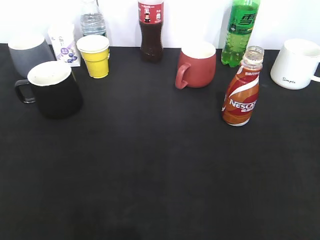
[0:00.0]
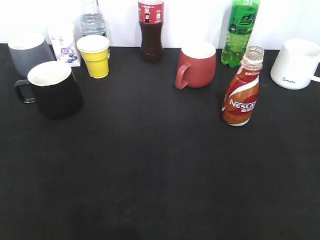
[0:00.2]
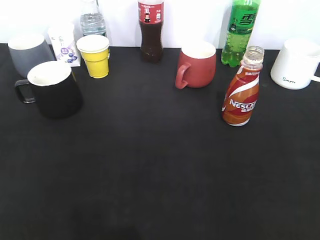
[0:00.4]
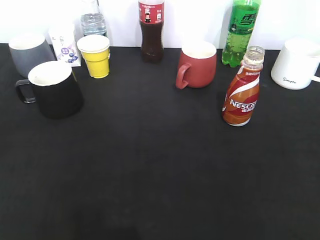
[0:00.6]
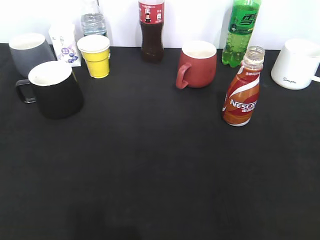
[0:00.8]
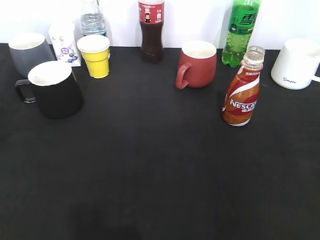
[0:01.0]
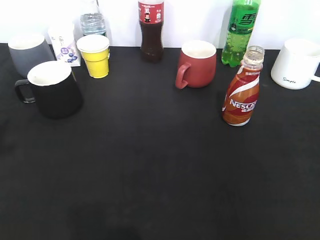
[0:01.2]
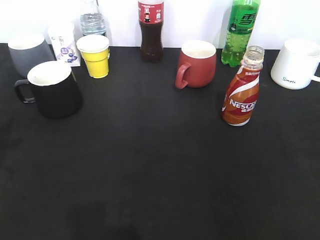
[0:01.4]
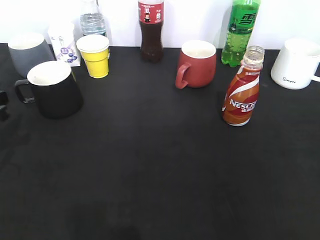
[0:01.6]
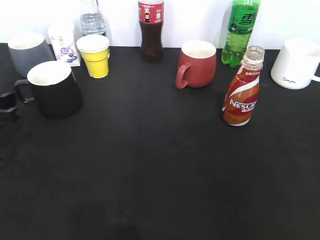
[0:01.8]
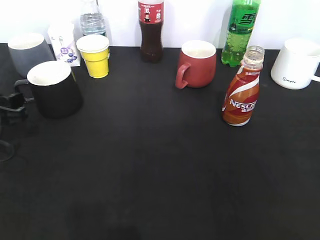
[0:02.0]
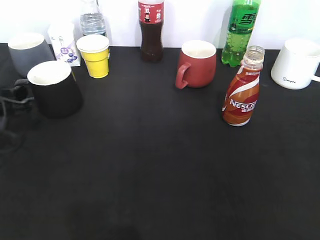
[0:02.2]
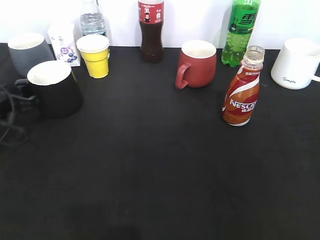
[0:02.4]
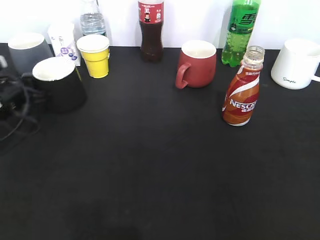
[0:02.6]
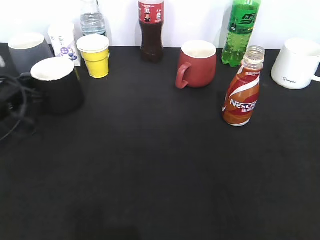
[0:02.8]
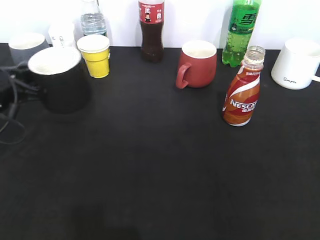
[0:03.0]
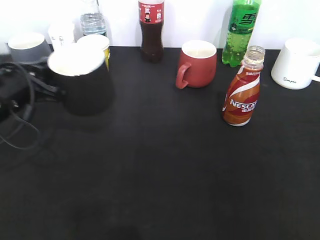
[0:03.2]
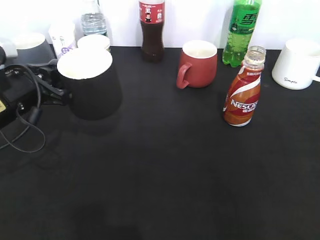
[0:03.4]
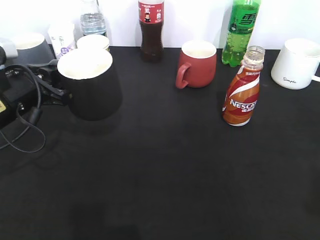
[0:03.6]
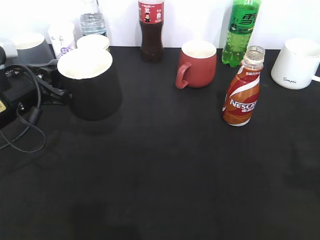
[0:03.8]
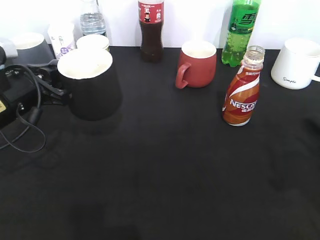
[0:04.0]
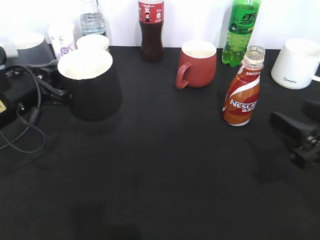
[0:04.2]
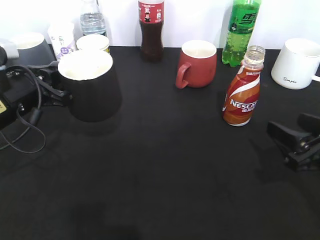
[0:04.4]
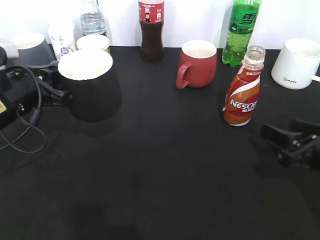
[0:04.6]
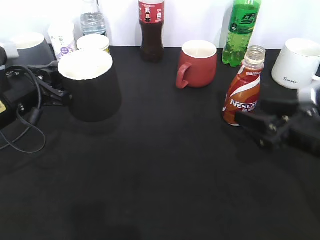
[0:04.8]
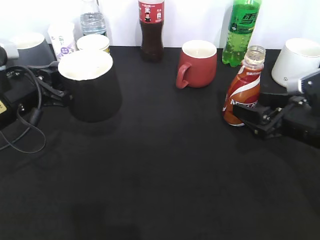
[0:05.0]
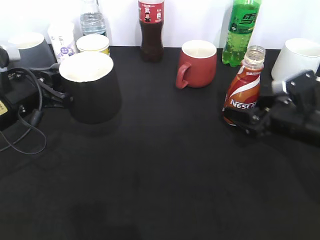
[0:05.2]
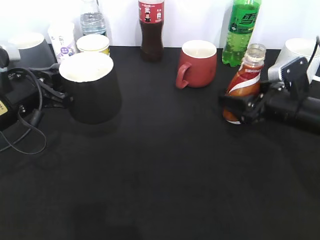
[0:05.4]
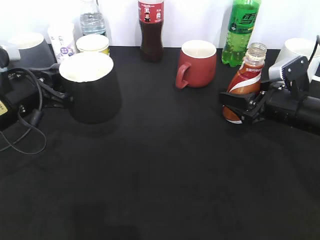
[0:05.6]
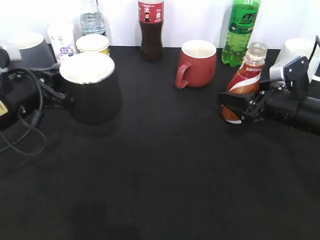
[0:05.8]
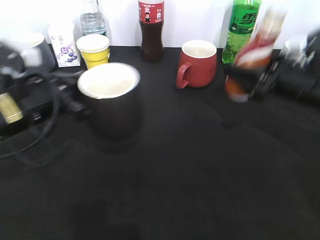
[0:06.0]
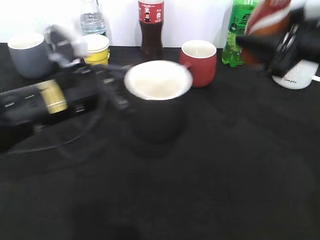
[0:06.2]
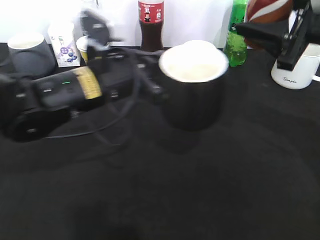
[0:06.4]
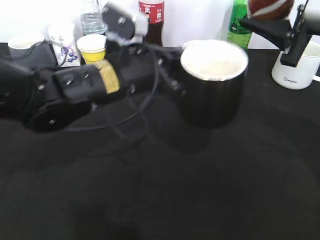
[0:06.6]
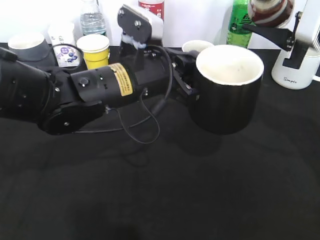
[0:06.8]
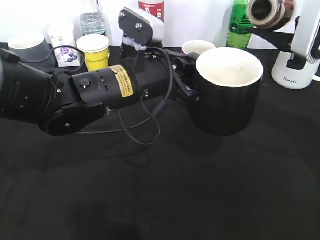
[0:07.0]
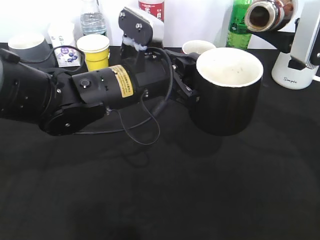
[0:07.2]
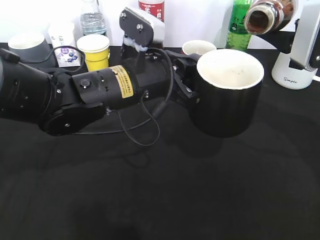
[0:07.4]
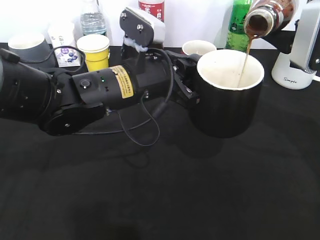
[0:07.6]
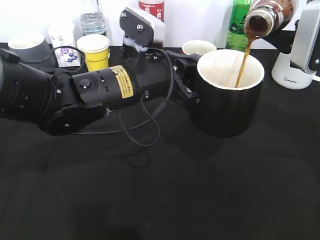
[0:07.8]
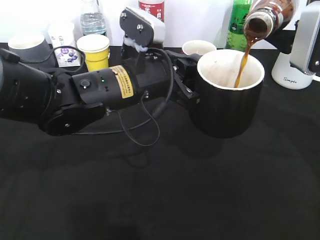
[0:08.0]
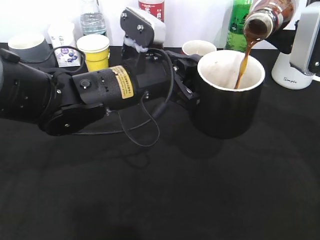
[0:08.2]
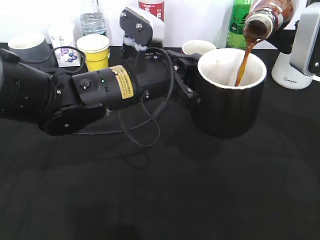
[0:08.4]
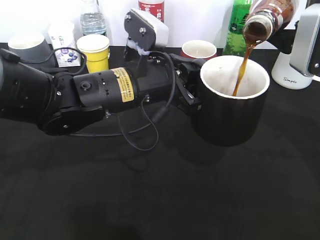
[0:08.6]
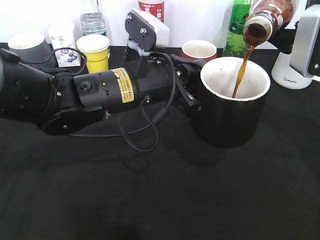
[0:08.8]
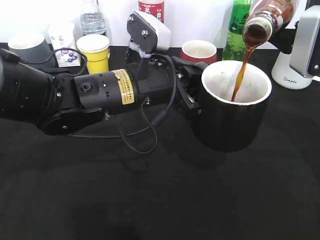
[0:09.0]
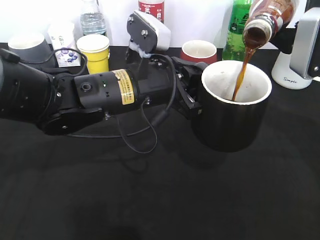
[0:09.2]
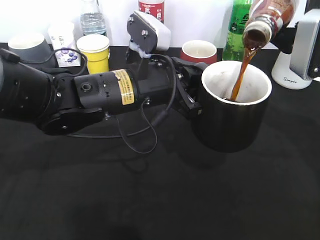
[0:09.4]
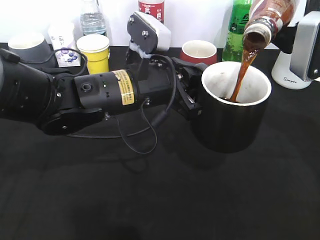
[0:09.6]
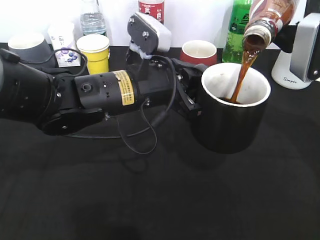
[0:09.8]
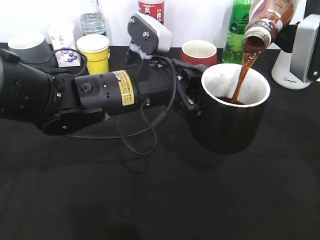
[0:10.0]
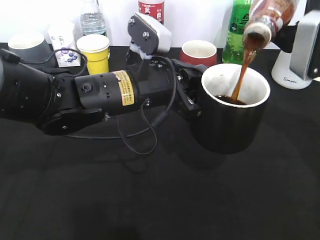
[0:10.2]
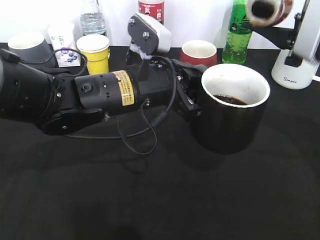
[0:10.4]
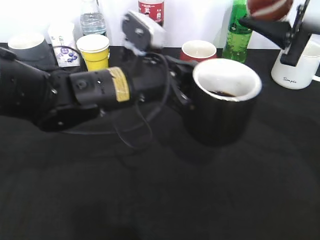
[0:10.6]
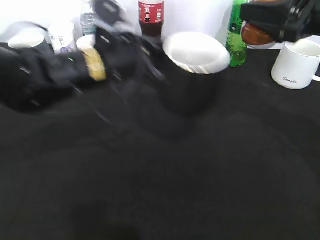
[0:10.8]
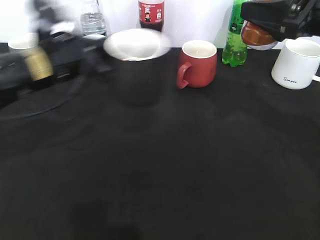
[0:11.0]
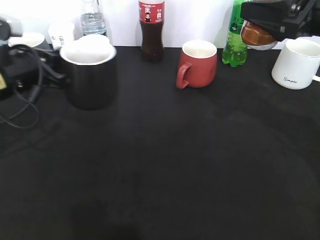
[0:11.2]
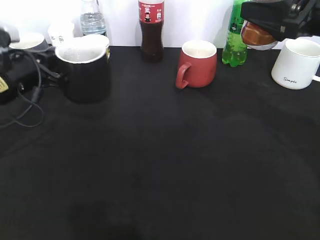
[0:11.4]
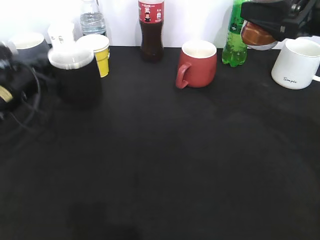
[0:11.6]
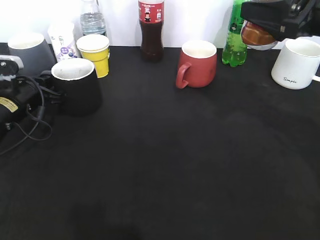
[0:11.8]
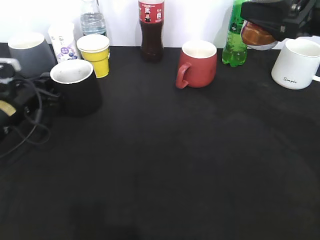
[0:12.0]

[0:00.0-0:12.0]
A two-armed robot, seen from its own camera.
Step, 0:00.6 to 0:02.6: Grasp the black cup with left gripper.
Step, 0:02.8 to 0:03.2: Lift the black cup with left gripper.
Step, 0:03.6 to 0:05.6: Grasp the bottle with coffee with right gripper.
Step, 0:05.8 to 0:10.8: Pour the coffee from bottle to cup with right gripper.
0:01.6 to 0:03.0: The left gripper heads forward, covering roughly 5 cm, and closes up.
0:03.0 to 0:04.4: The right gripper moves forward and downward, roughly 25 cm.
0:04.4 to 0:06.0: The right gripper heads forward, covering approximately 10 cm, and closes its fingers.
0:06.0 to 0:07.6: The left gripper travels to the right by roughly 15 cm. Meanwhile the right gripper moves upward, some 10 cm.
0:07.6 to 0:10.4: The grippers move only a little.
0:10.4 to 0:12.0: The left gripper moves to the left and downward, roughly 25 cm.

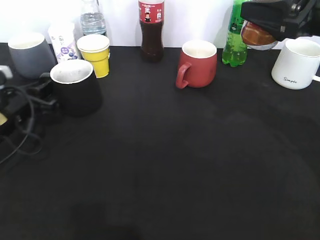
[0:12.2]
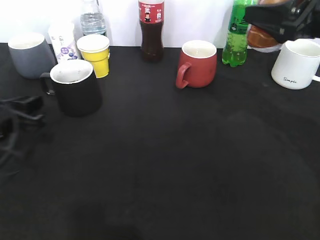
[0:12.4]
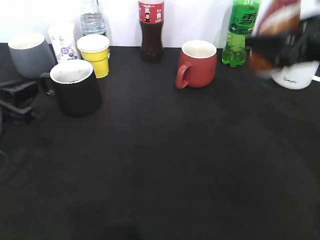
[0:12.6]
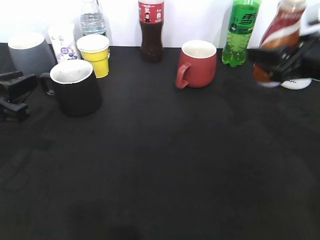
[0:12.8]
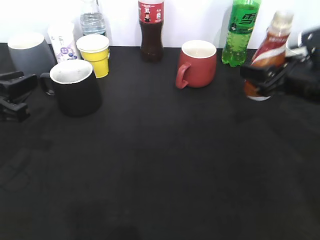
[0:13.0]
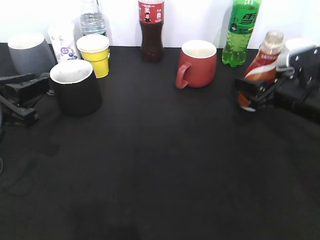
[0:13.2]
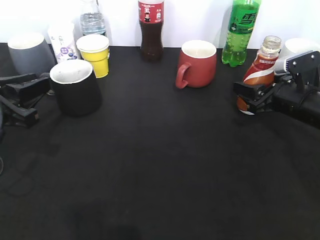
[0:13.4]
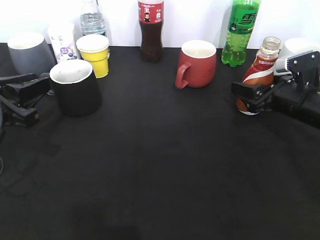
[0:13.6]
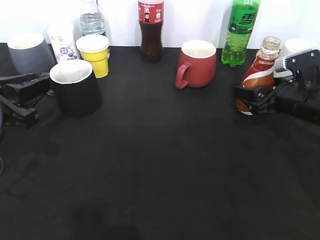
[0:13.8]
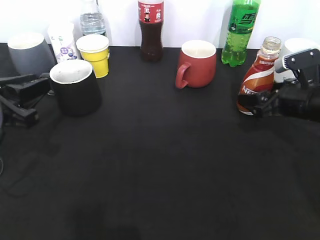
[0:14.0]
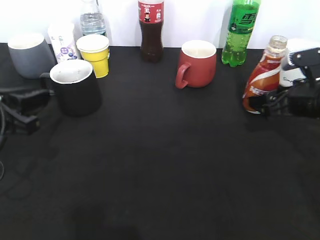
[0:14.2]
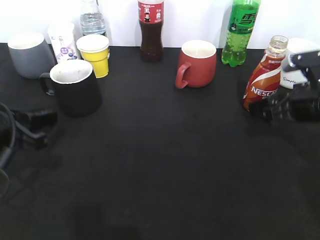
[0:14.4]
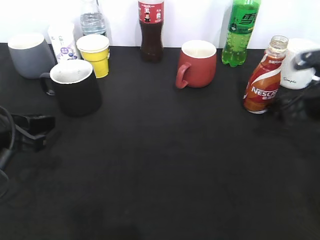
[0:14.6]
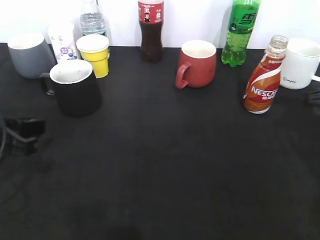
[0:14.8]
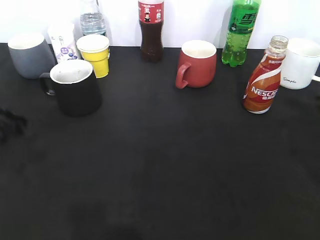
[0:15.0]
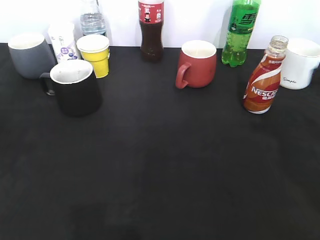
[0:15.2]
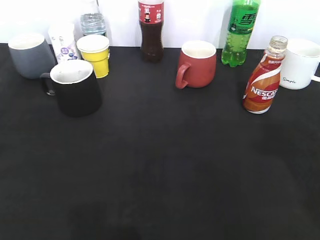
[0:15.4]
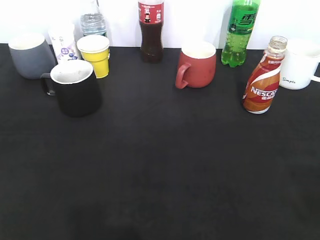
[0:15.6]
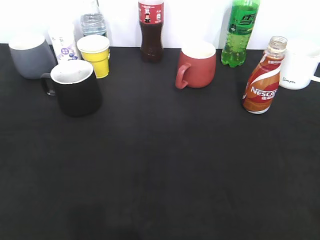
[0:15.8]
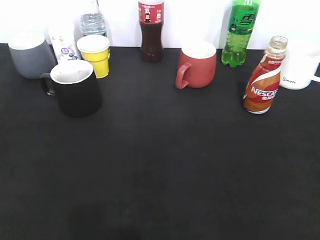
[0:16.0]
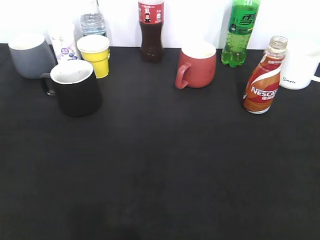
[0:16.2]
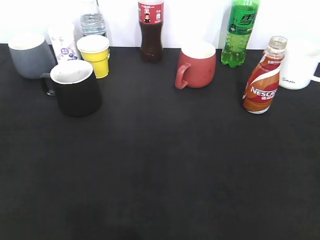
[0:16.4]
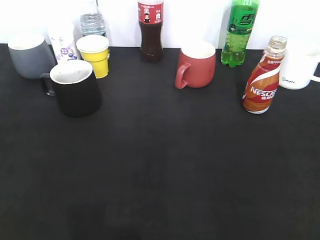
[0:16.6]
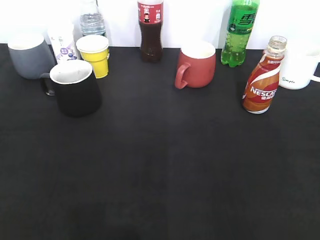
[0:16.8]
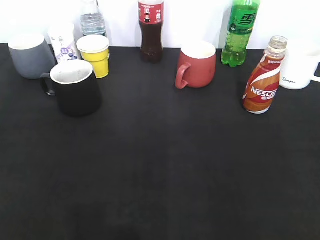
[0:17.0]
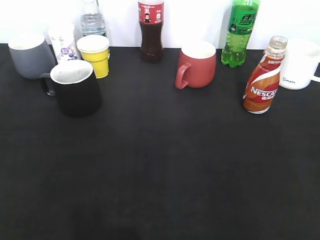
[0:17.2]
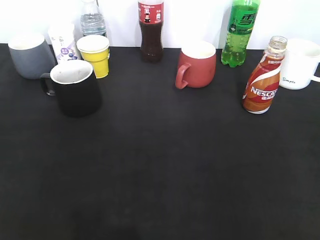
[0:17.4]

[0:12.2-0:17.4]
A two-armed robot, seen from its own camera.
Step, 0:12.6 to 0:14.2: Place the coffee bottle on the table with right gripper.
0:12.2 to 0:14.0: The right gripper heads downward, covering roughly 15 cm, and opens its fingers, while the left gripper heads backward and upward, covering some 10 cm.
0:14.0 to 0:15.6: Both grippers travel together backward and upward, about 25 cm. The right gripper closes its fingers.

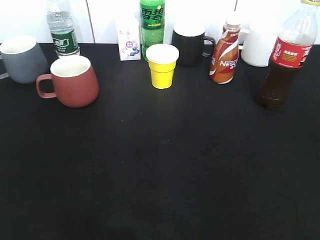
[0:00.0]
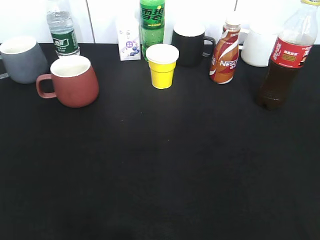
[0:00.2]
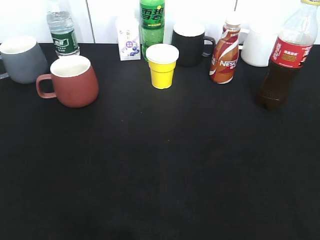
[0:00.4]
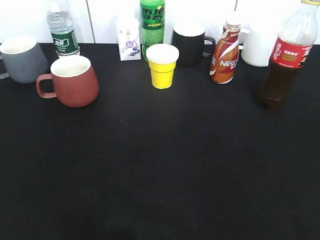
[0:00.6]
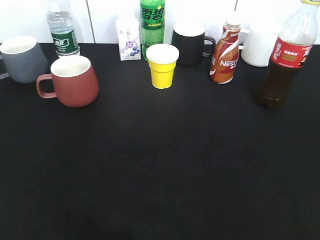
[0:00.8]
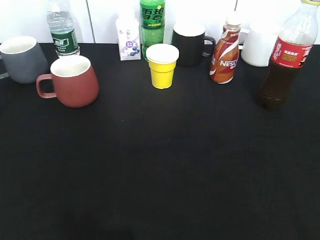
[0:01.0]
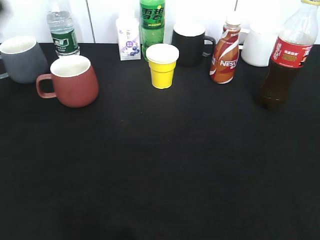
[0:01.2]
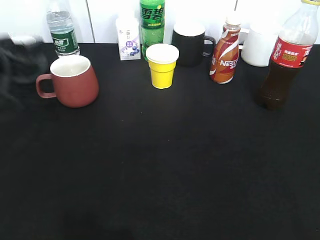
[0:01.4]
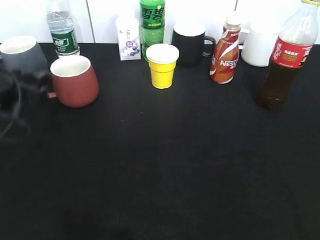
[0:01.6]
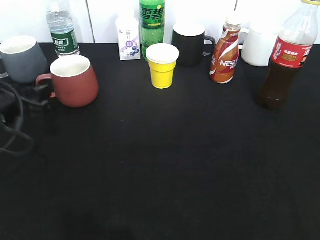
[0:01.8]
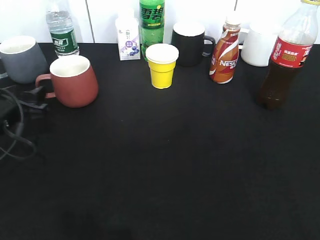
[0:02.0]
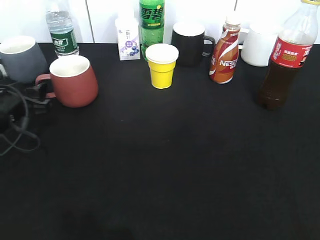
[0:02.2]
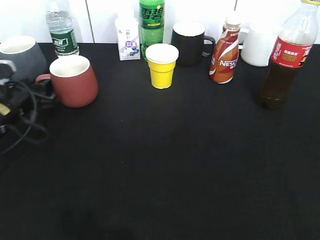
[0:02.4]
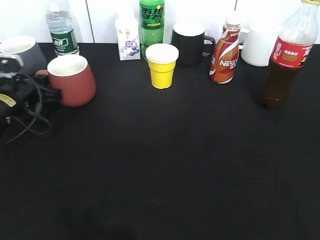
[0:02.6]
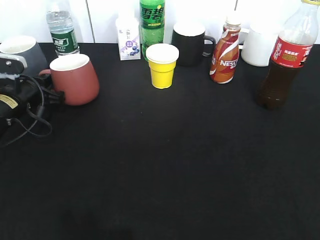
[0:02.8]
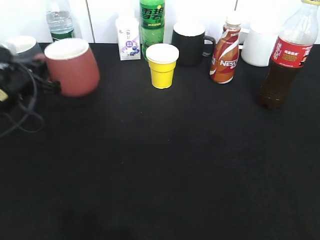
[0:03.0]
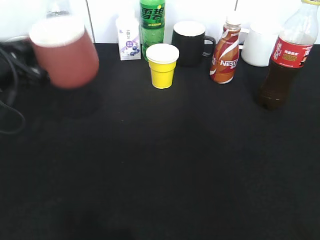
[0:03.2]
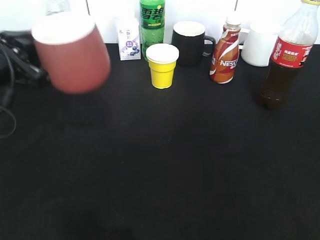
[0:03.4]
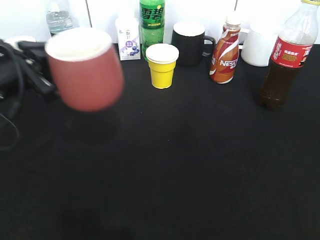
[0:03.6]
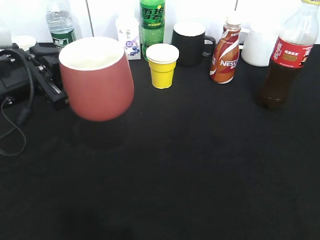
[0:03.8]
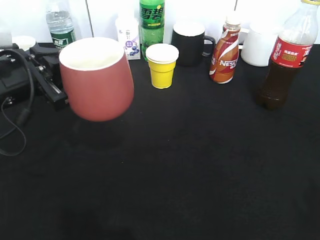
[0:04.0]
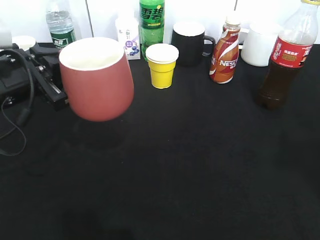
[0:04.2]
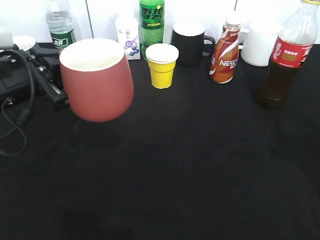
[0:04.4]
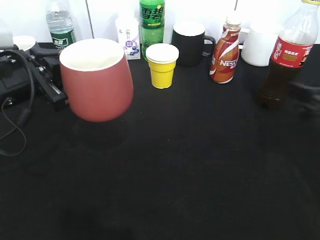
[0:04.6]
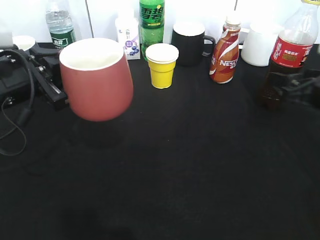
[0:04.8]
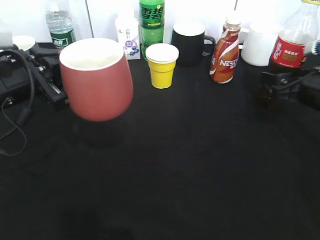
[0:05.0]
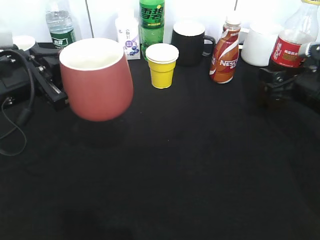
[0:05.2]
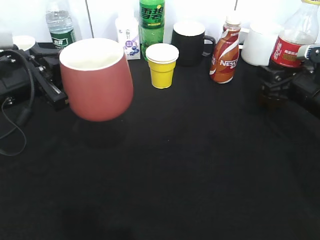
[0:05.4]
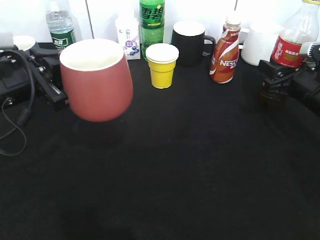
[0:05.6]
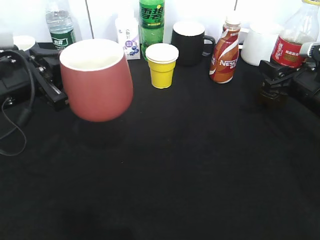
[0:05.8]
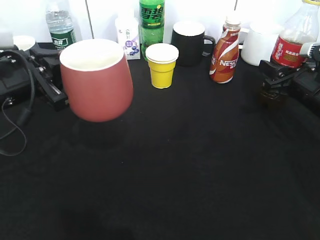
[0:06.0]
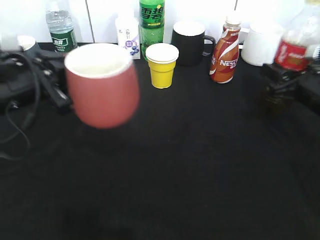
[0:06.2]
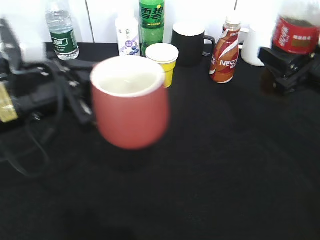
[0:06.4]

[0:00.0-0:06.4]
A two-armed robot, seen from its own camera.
Step, 0:00.0 to 0:02.6: Grasp the red cup with left gripper.
Step, 0:02.8 to 0:03.8: Lift the red cup with left gripper.
Step, 0:04.2 to 0:05.8: Grasp the bottle with cola with right gripper.
0:00.0 to 0:01.6: The left gripper is displaced forward by approximately 25 cm, and opens up.
0:01.6 to 0:03.2: The left gripper goes downward and returns, approximately 5 cm each way, and closes.
0:03.2 to 0:04.8: The right gripper shifts some 30 cm forward, and opens. Meanwhile the left gripper shifts by roughly 5 cm.
0:04.8 to 0:06.4: The right gripper closes up; the left gripper shifts by roughly 5 cm.
